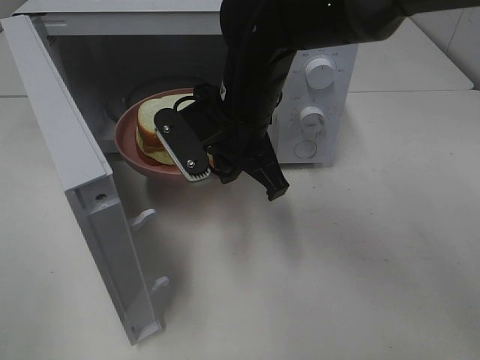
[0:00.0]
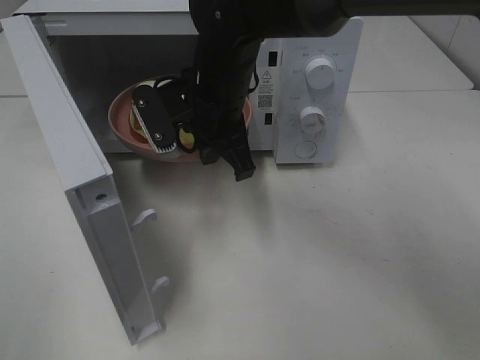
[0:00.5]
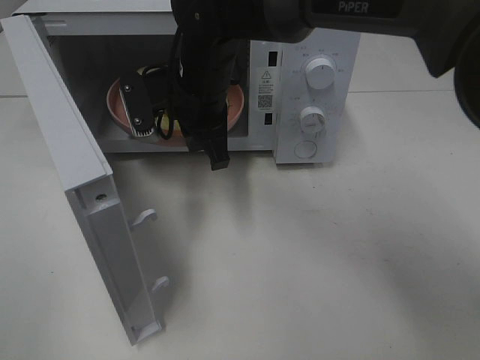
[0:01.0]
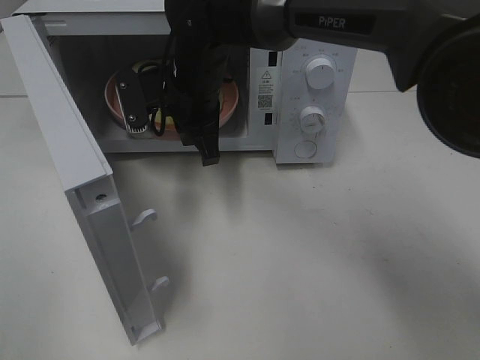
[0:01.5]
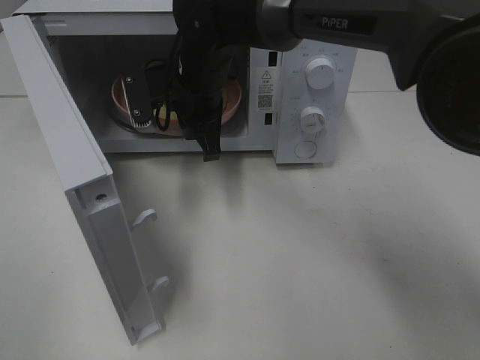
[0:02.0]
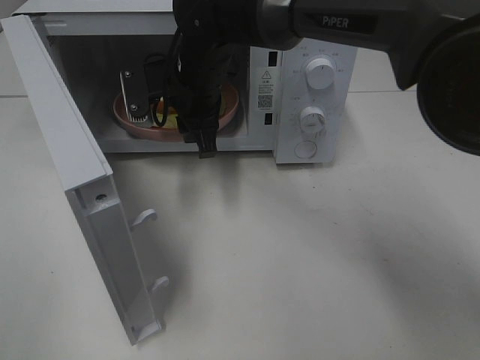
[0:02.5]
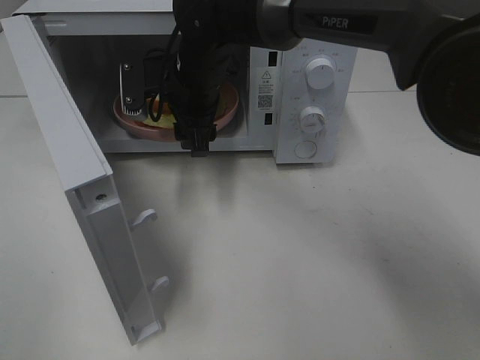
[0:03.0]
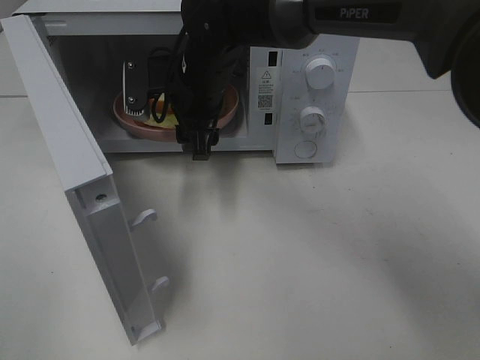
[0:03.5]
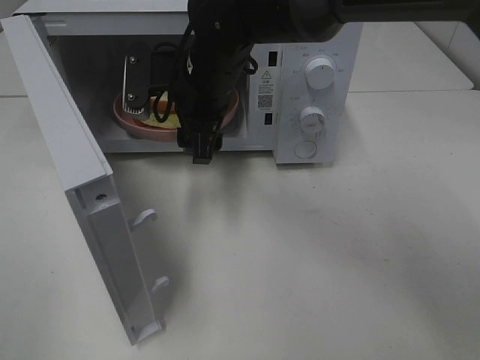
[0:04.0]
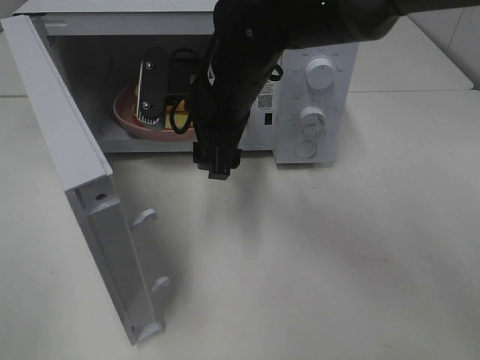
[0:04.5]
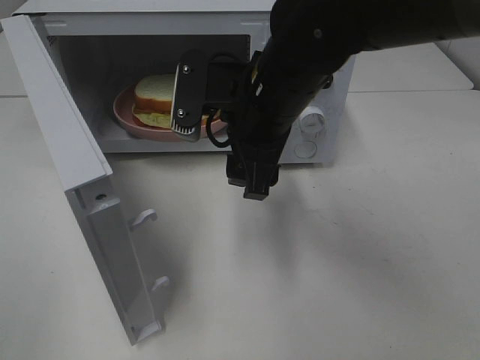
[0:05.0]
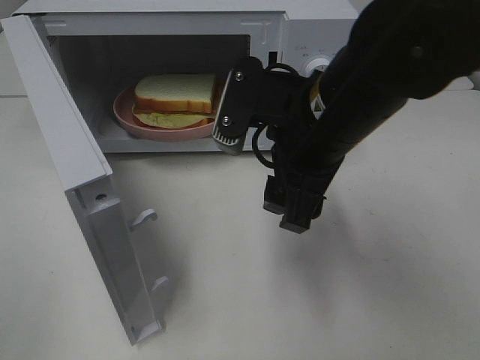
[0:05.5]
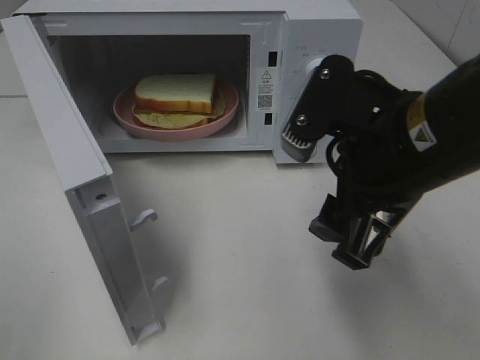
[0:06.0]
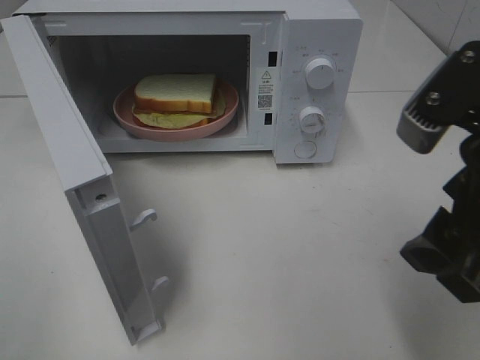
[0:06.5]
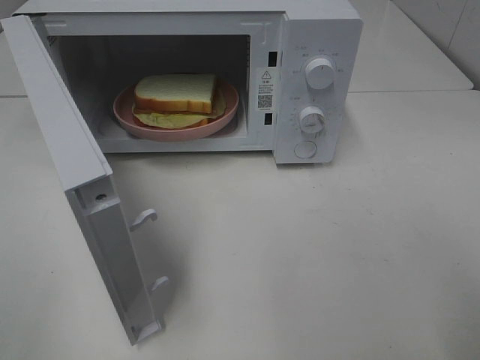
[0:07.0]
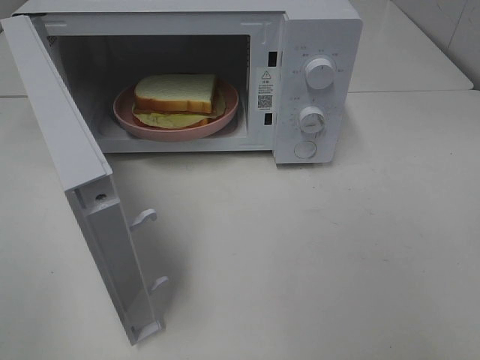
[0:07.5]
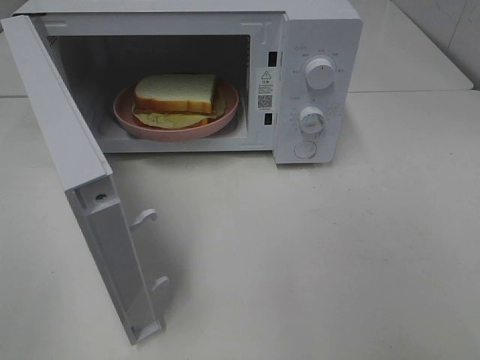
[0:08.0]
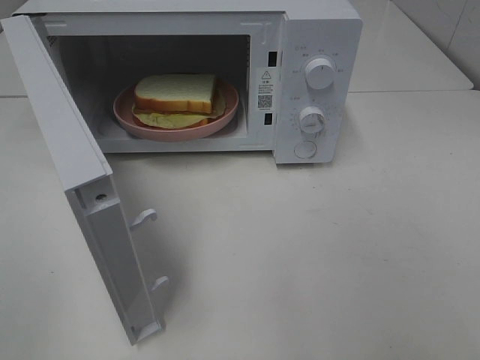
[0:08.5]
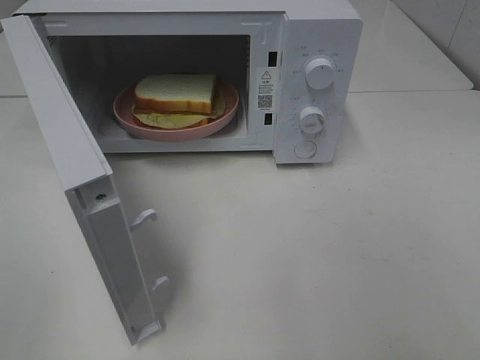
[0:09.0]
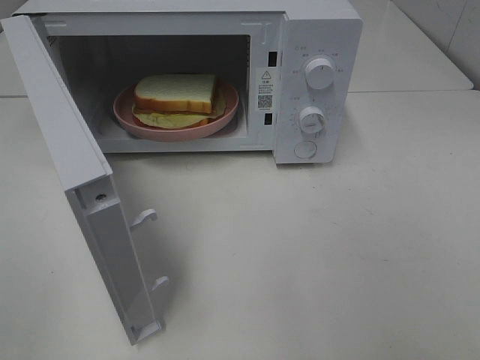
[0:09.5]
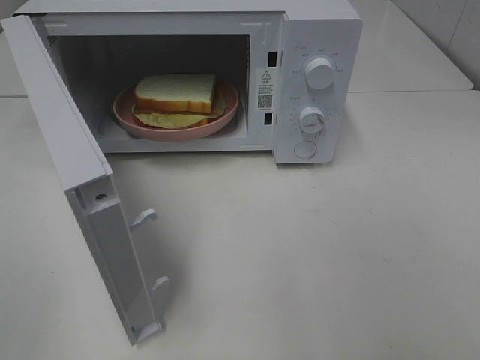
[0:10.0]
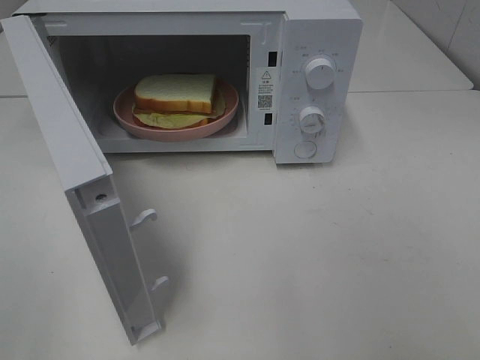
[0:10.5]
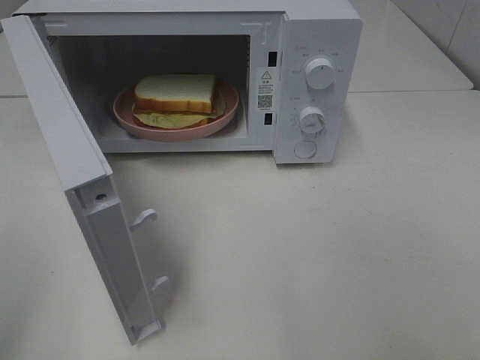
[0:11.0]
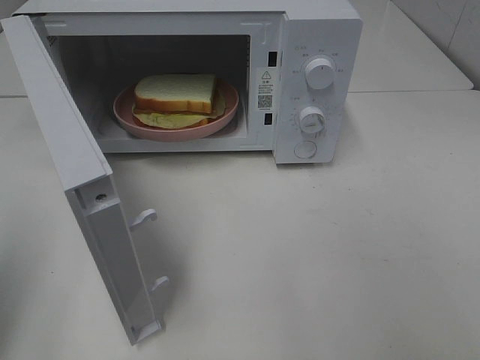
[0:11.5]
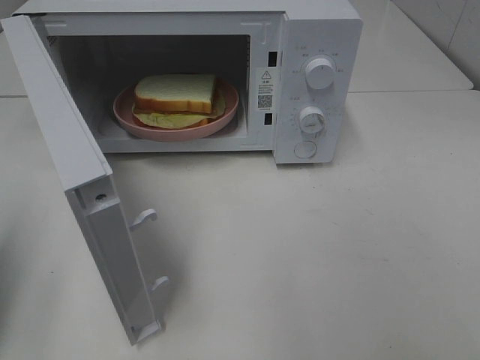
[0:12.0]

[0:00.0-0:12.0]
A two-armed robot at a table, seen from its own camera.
Task of the whole recording: Heat Sandwich.
Step, 0.0 to 4.5 s: Right hand: place the plate in the microwave.
0.0 to 2.0 s: The right gripper travels forward by roughly 10 cm.
2.0 to 4.0 s: The right gripper opens its fingers.
4.0 to 6.0 s: The right gripper is displaced backward and to the right by approximately 25 cm.
6.0 to 8.0 s: The right gripper travels backward and to the right by about 25 cm.
10.0 to 12.0 s: The left gripper moves forward, about 15 cm, and closes up.

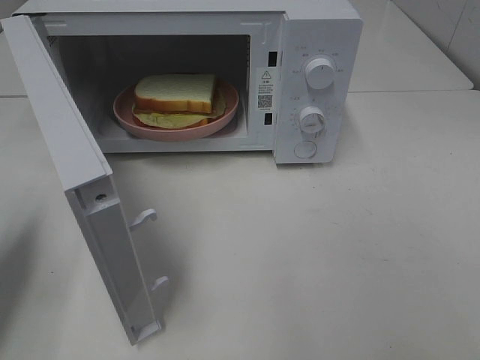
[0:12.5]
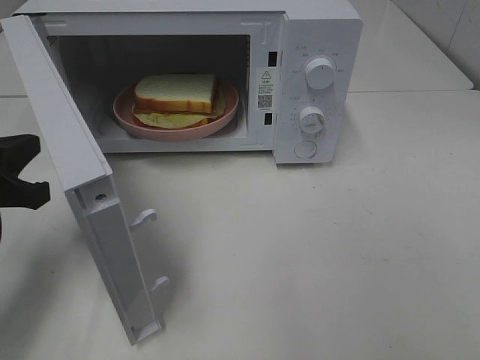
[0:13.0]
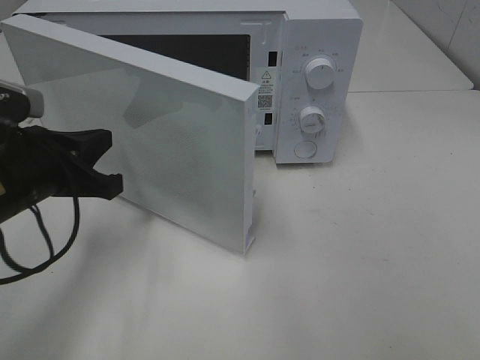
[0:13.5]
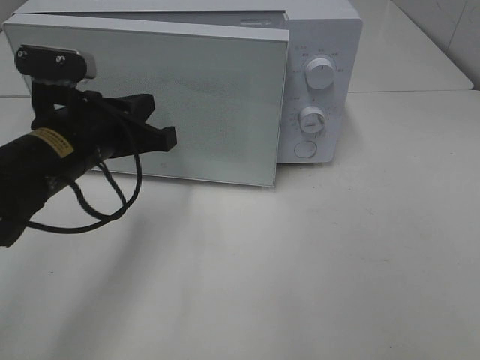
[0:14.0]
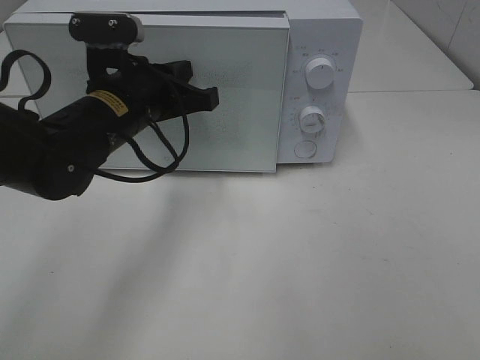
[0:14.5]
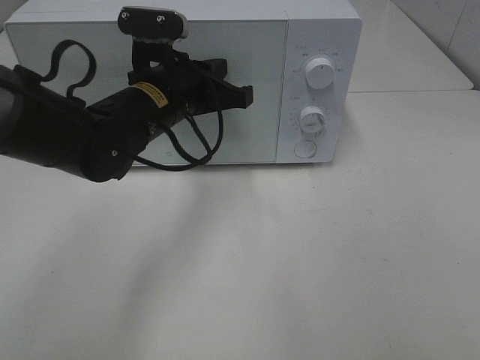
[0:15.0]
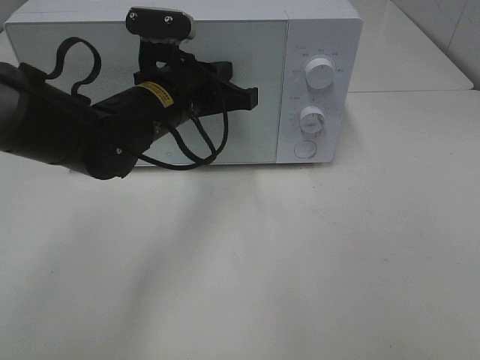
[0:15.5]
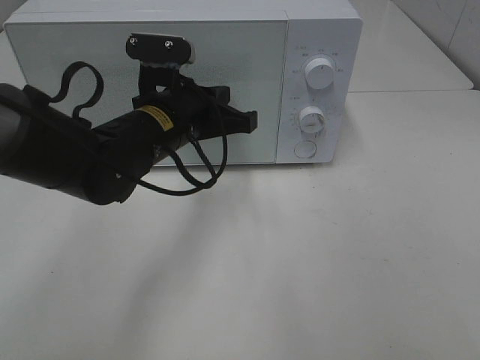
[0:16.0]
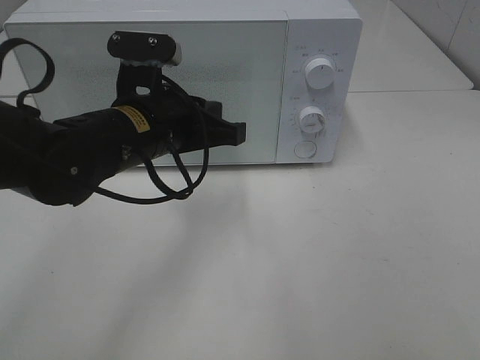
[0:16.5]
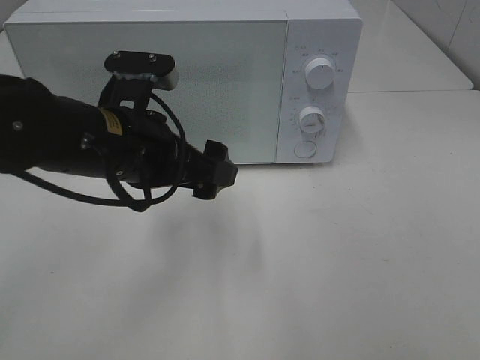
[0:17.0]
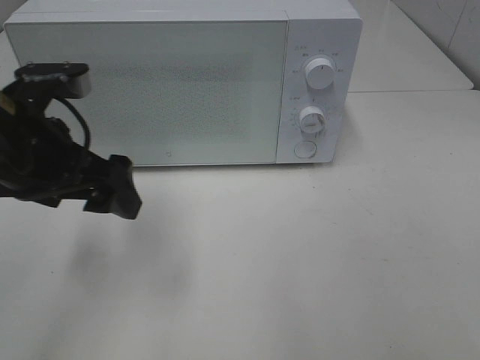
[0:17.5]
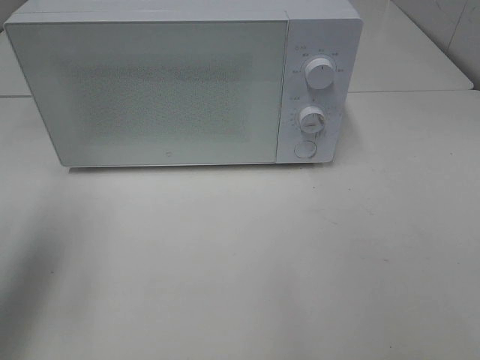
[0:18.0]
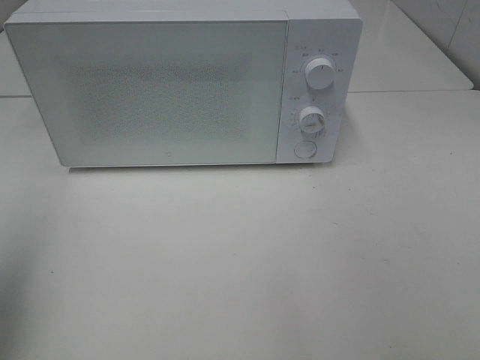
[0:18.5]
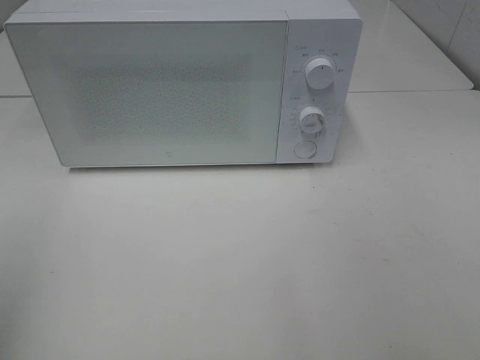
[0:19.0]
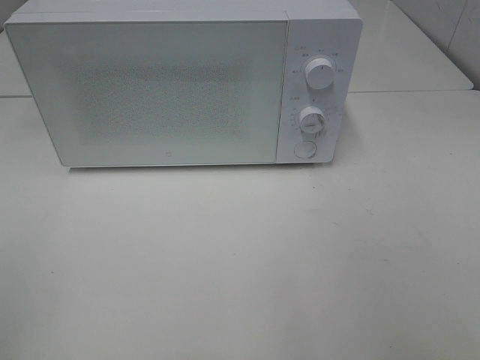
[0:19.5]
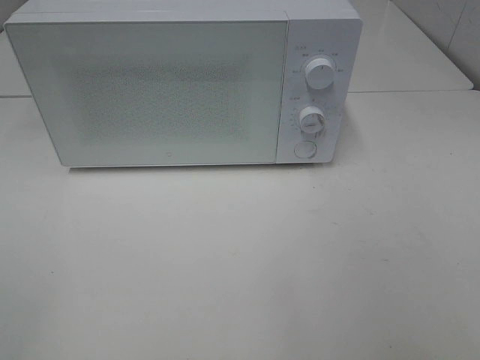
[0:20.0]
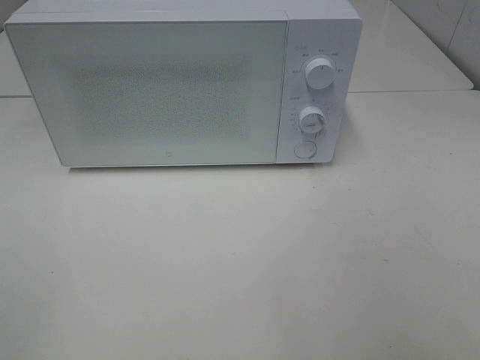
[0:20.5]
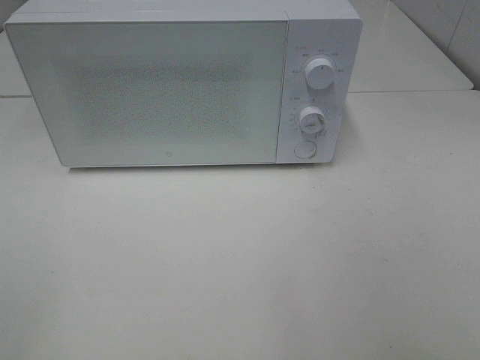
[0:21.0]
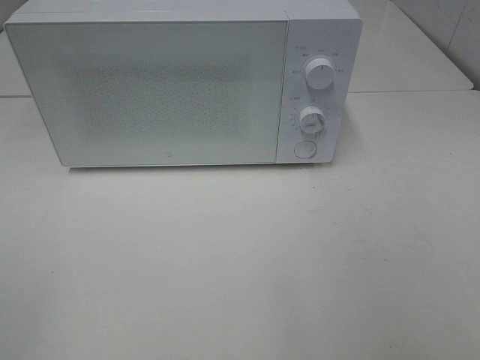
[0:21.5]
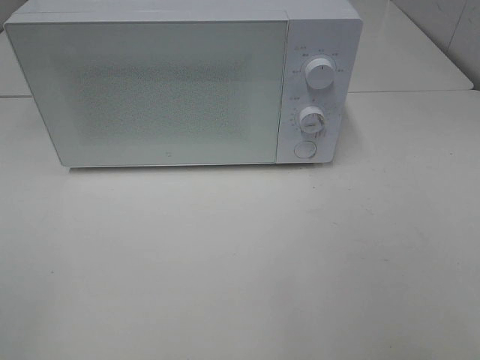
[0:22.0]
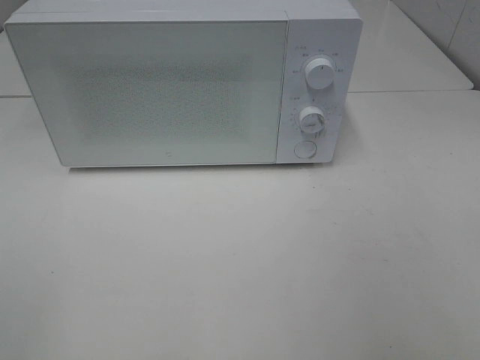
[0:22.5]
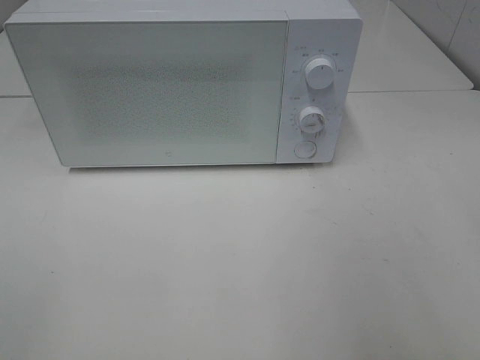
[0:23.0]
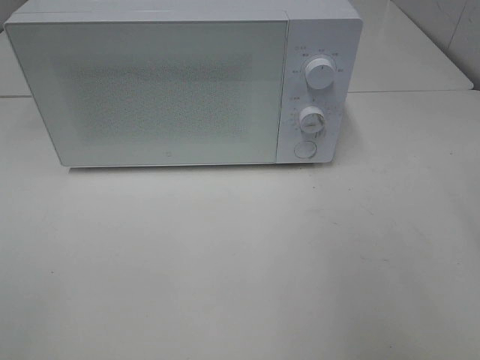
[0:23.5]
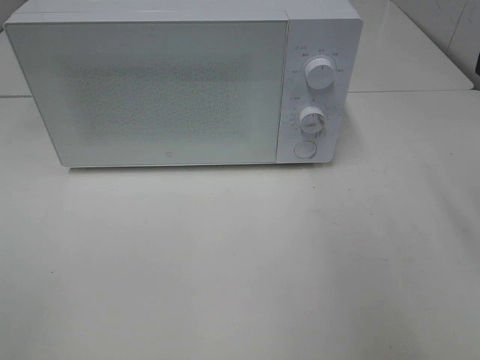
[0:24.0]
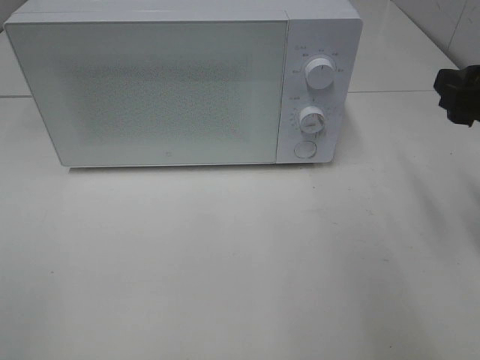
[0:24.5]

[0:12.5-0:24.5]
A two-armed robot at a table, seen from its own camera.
Task of the whole recording: Heat Sandwich.
Step, 12.5 to 16.0 s: Left hand: close the microwave door.
12.5 to 14.5 s: The left gripper travels to the right and forward by roughly 25 cm.
14.5 to 16.5 s: The grippers stay close to where they were, moving slightly.
16.5 to 18.5 s: The left gripper is displaced to the left, upward and backward by about 30 cm, and opens its fingers.
18.5 to 20.5 s: The left gripper is displaced backward by approximately 15 cm.
22.5 to 24.5 s: The right gripper shifts roughly 20 cm forward.

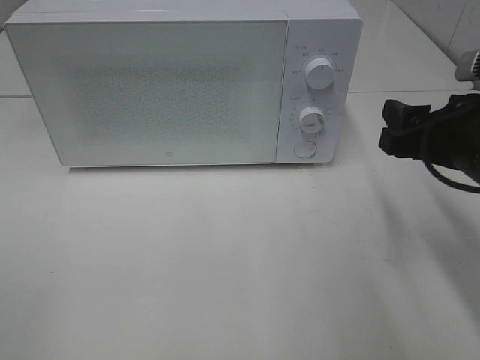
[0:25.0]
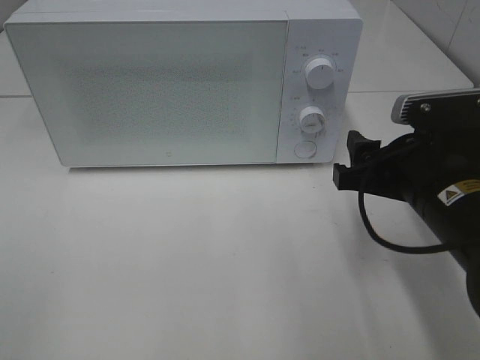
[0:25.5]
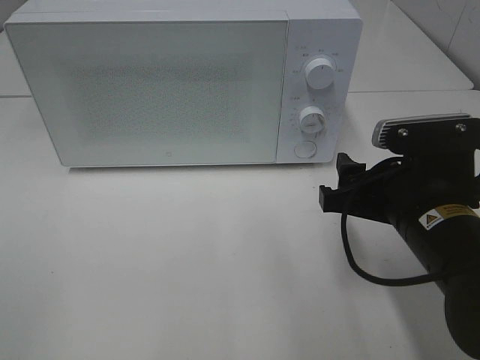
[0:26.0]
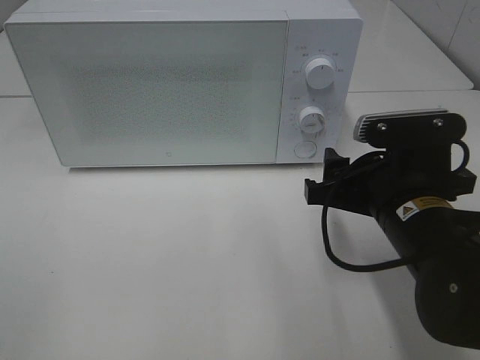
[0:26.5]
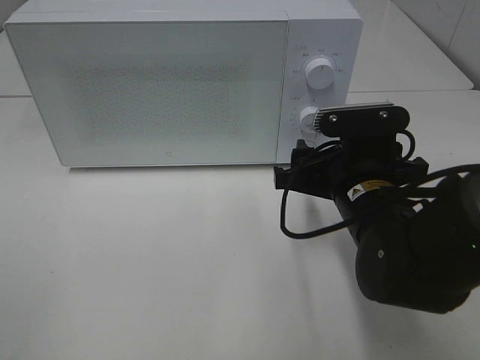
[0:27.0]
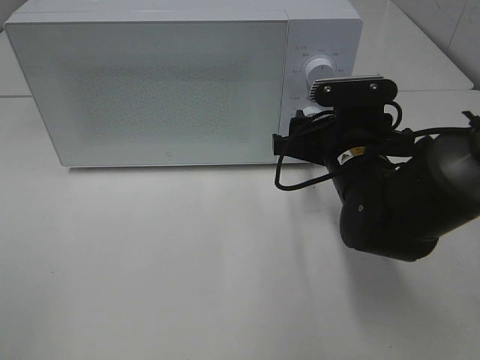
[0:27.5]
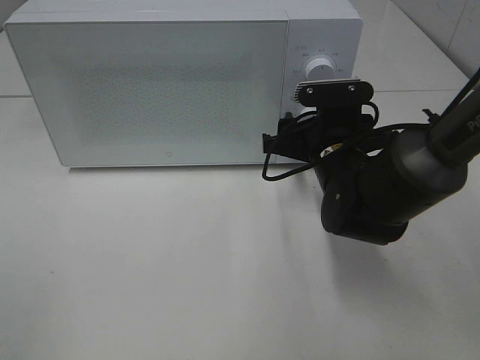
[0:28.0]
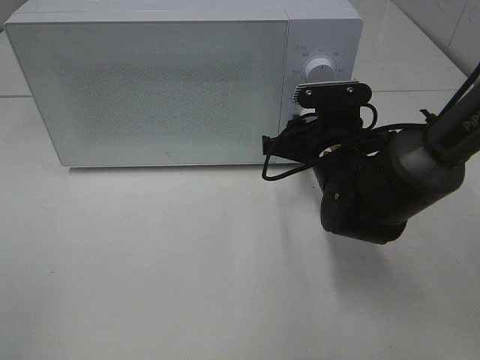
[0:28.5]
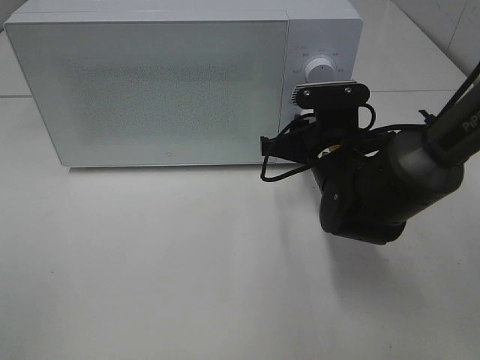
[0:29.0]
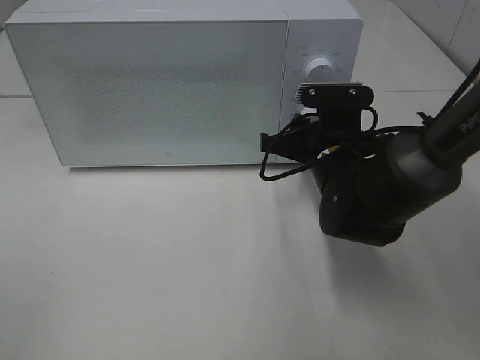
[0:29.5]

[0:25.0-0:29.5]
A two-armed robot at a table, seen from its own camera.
Task of the whole recording: Heat Sandwich.
25.0 to 27.0 s: The right gripper goes about 10 cm to the left and downward.
27.0 to 29.5 s: The right gripper shifts approximately 10 cm forward, and closes up.
